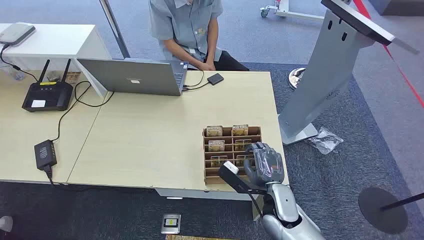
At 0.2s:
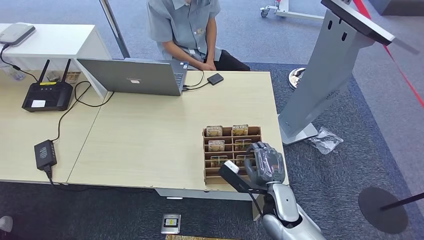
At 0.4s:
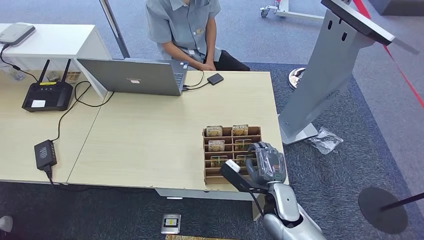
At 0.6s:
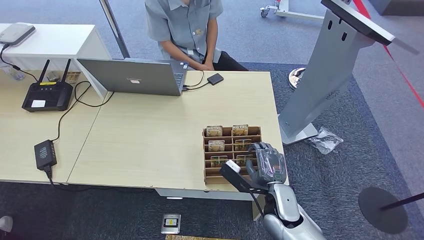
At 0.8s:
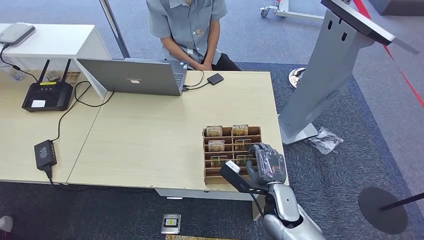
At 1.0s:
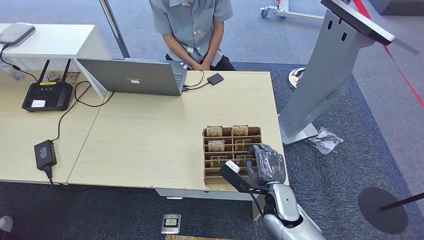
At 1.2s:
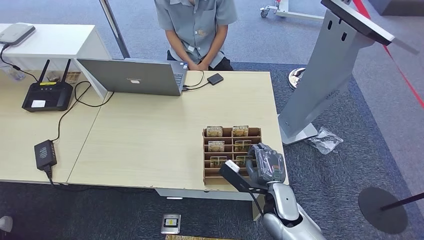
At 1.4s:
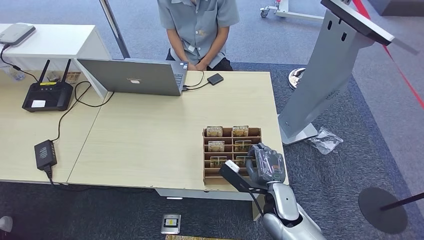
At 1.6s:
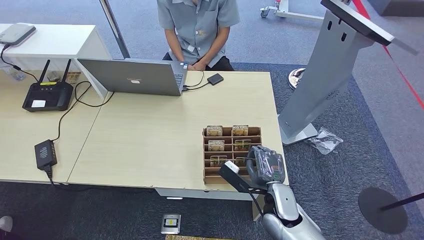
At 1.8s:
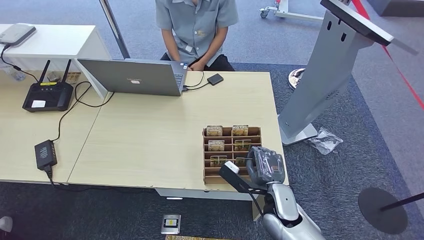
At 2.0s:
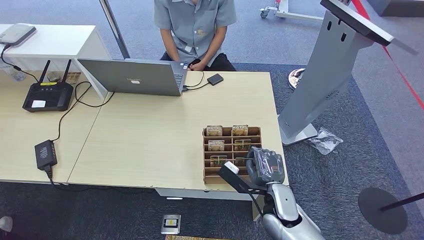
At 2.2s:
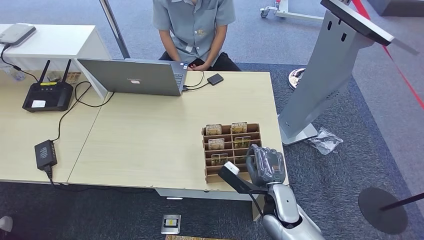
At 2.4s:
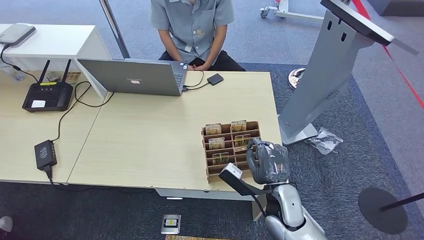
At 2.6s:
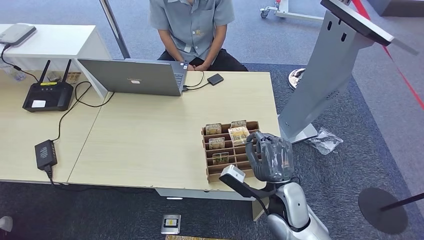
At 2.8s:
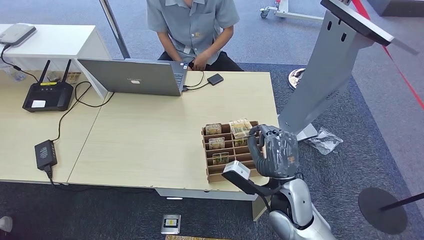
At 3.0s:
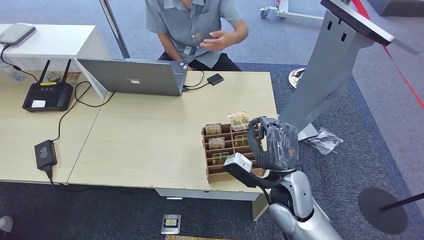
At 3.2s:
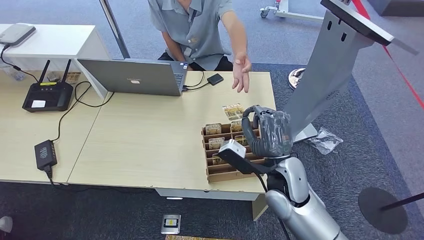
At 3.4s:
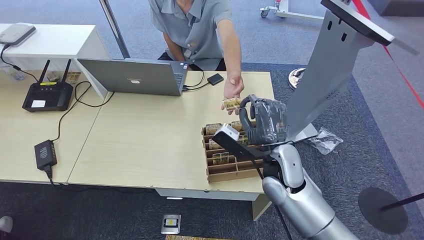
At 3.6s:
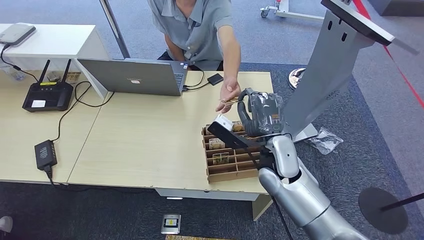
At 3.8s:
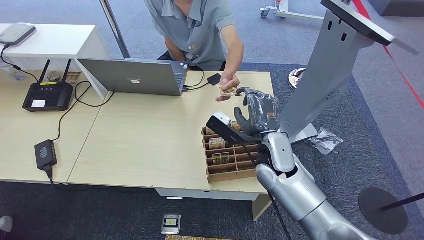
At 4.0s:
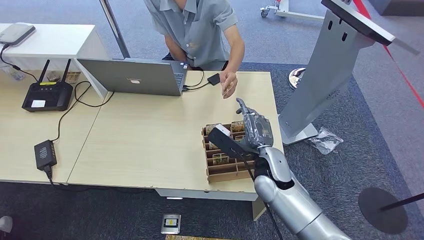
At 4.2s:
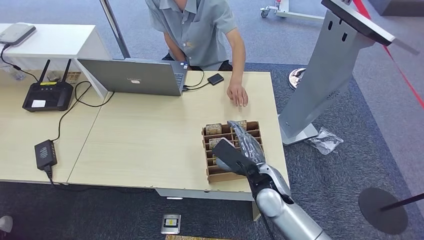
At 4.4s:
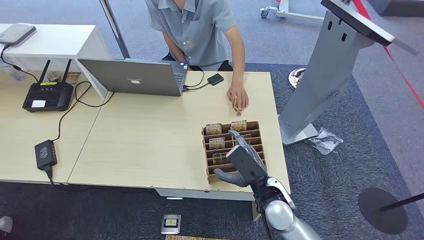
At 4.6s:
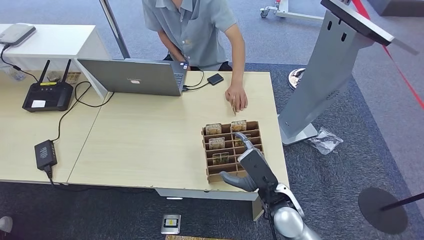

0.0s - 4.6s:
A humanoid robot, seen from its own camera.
Step, 0.0s - 2.8s: Pick up the key card from the card box.
Step, 3.0s - 4.6s: Hand the key card to the target.
1.6s - 3.0s: The right hand moves upward, about 10 cm.
3.0s - 4.6s: The right hand is displaced downward by approximately 5 cm, and travels forward and back again, some 10 cm each way.

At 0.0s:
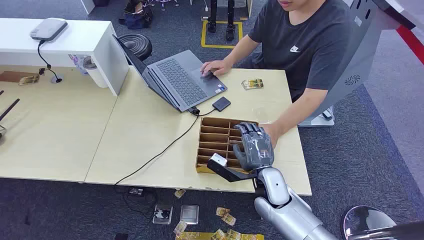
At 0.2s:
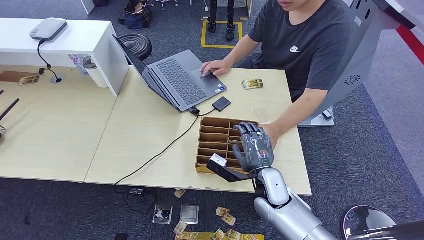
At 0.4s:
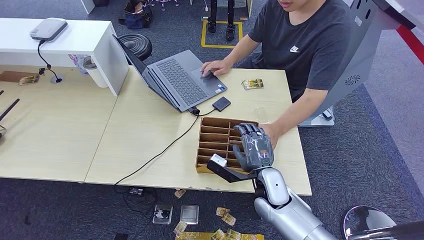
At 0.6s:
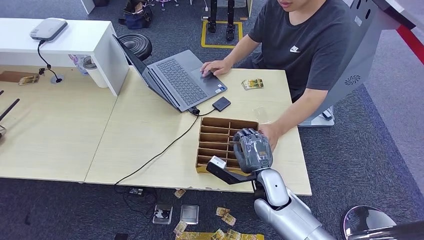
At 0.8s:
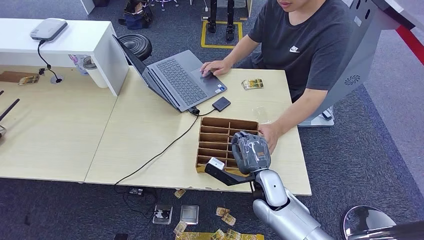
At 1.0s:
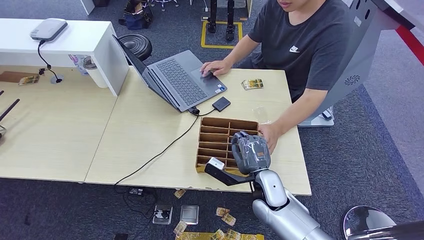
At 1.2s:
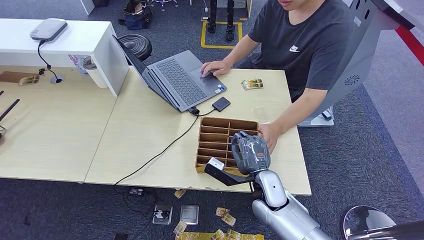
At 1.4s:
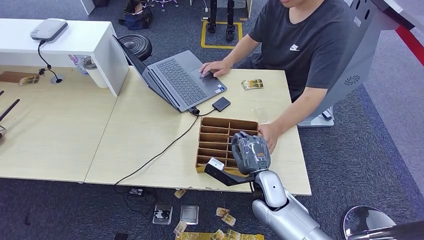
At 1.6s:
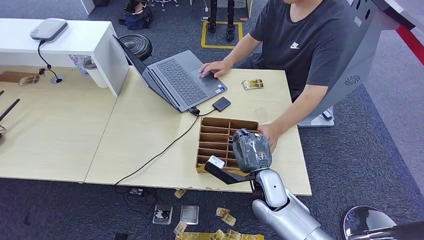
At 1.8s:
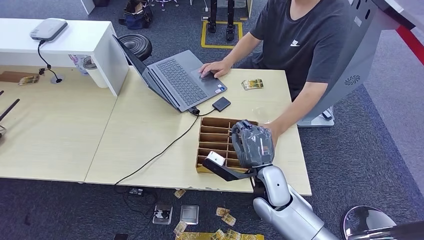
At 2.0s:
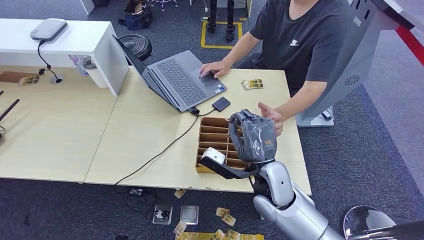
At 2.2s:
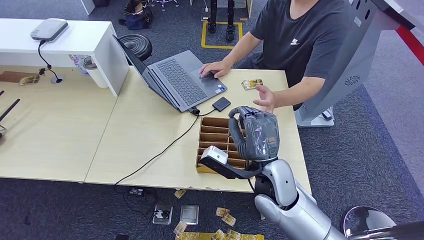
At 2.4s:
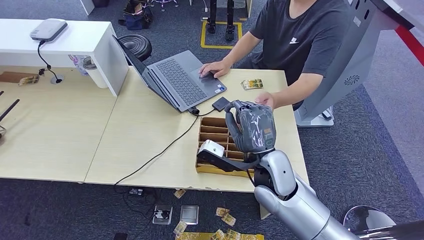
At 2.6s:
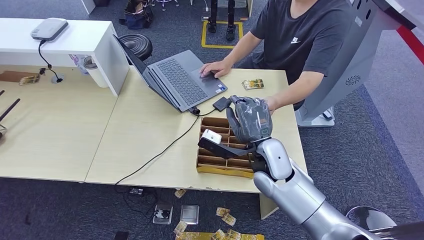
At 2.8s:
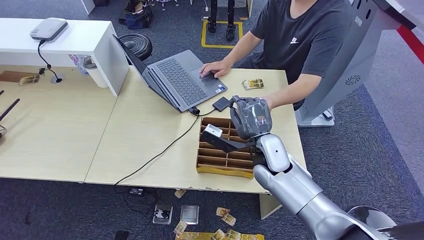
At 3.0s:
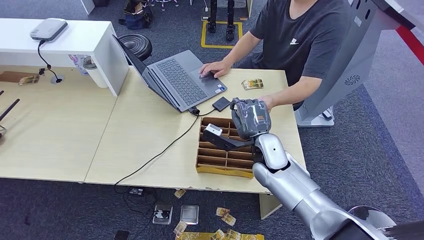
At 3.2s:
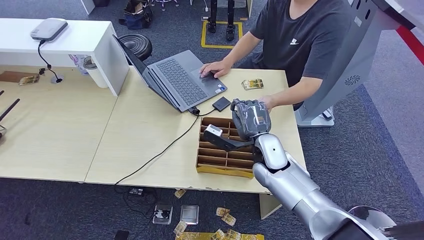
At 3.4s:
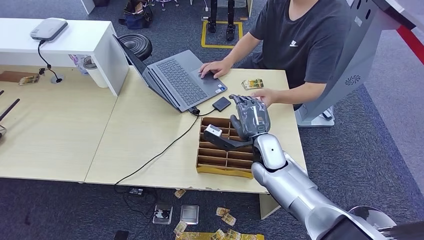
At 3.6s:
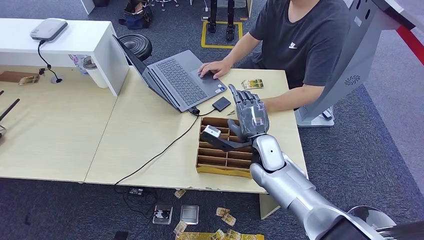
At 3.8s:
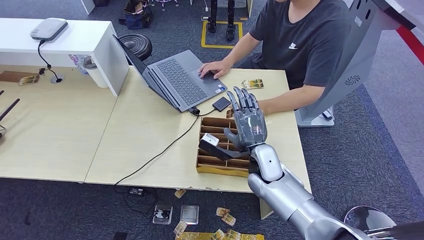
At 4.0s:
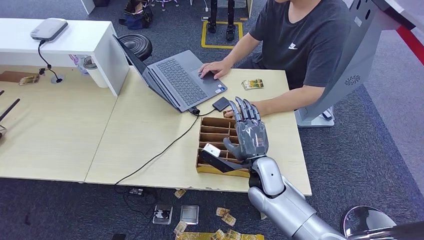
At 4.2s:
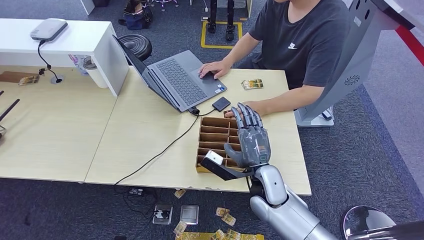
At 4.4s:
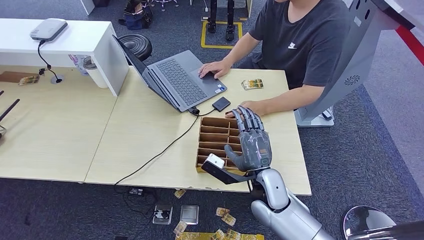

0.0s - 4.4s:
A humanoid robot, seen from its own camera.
Step, 0.0s - 1.8s: Pick up the key card from the card box.
Step, 2.0s - 4.4s: Hand the key card to the target.
1.4s - 3.0s: The right hand shifts roughly 10 cm forward and upward.
3.0s - 4.4s: The right hand moves backward, roughly 10 cm.
